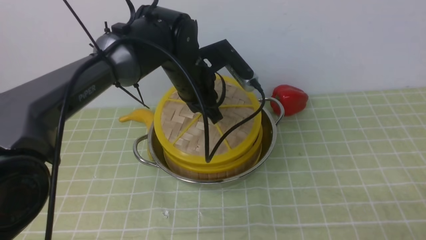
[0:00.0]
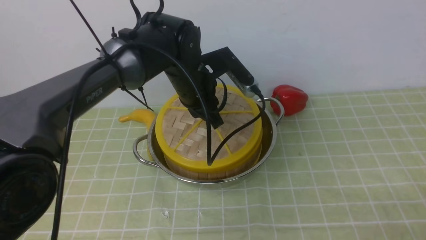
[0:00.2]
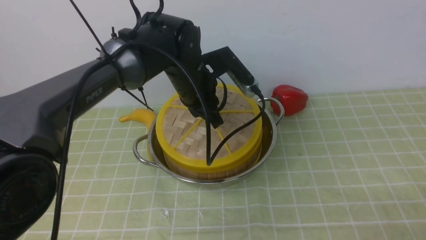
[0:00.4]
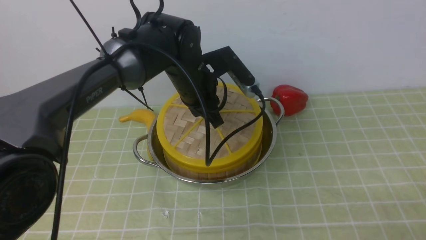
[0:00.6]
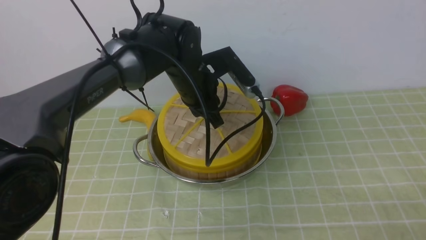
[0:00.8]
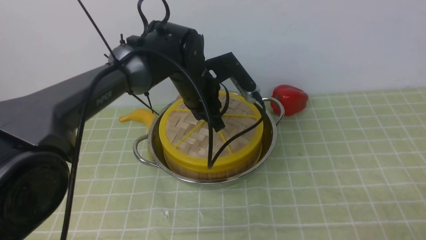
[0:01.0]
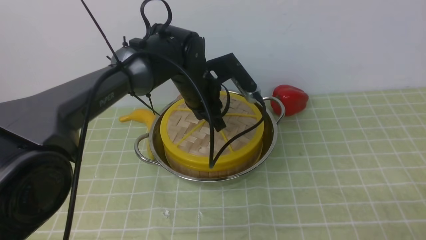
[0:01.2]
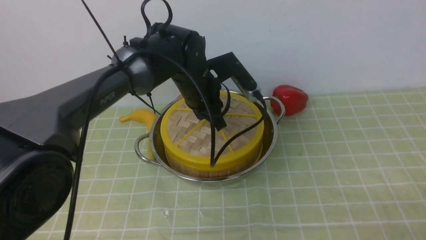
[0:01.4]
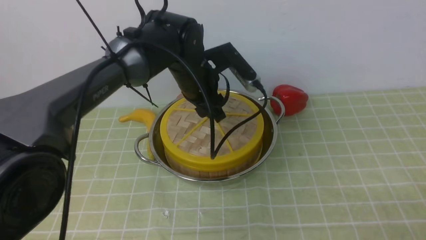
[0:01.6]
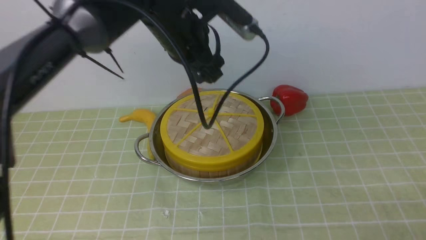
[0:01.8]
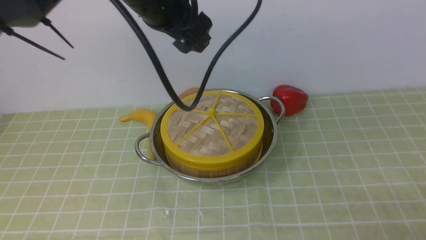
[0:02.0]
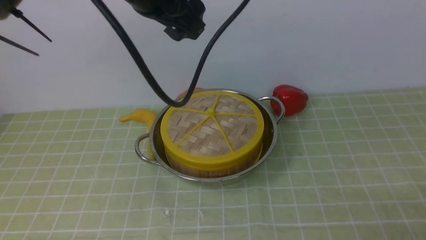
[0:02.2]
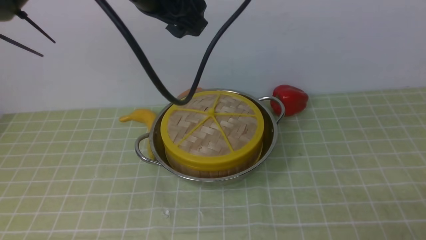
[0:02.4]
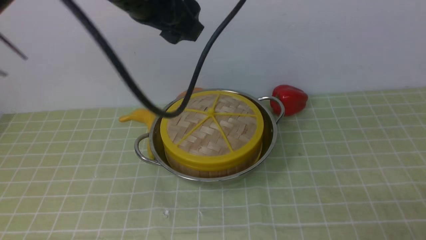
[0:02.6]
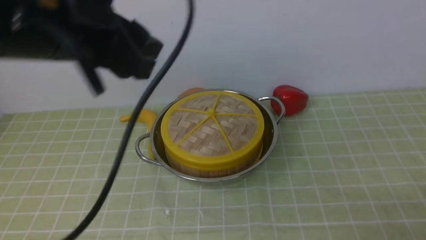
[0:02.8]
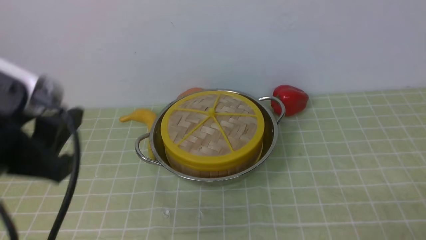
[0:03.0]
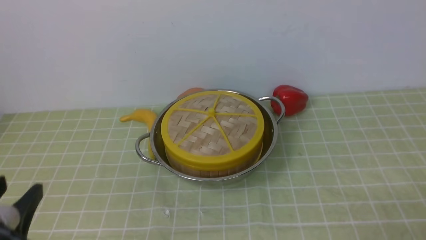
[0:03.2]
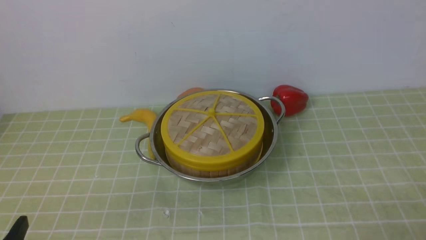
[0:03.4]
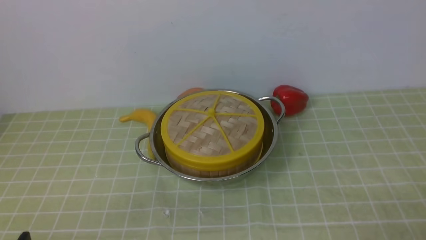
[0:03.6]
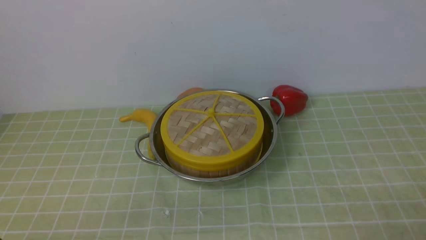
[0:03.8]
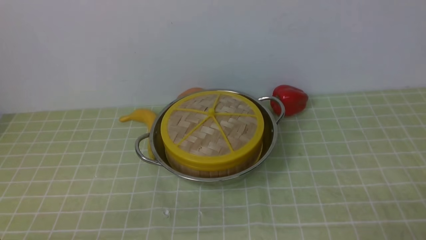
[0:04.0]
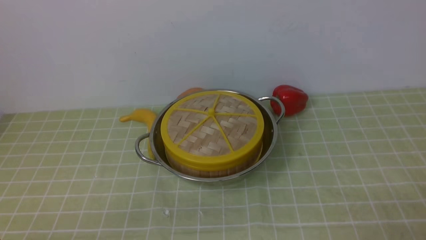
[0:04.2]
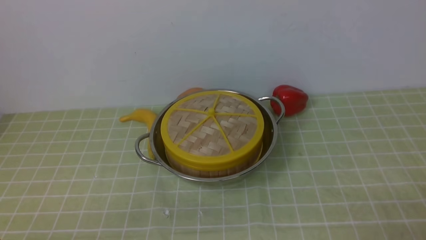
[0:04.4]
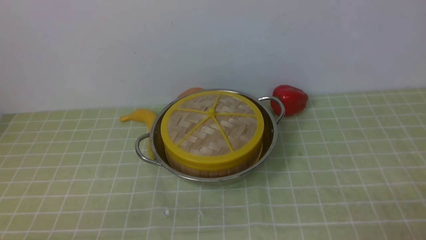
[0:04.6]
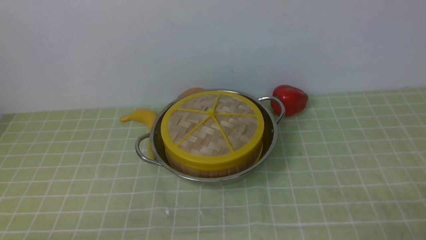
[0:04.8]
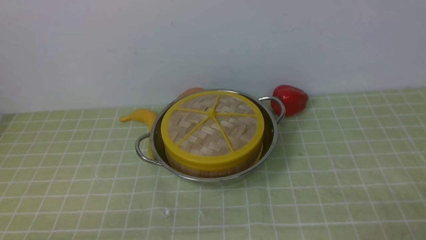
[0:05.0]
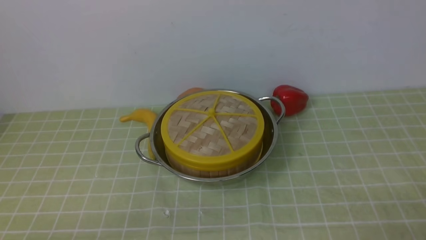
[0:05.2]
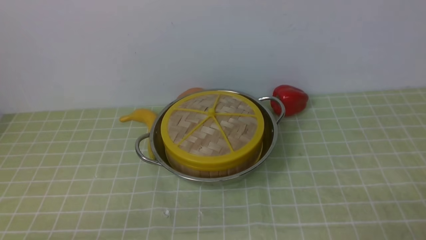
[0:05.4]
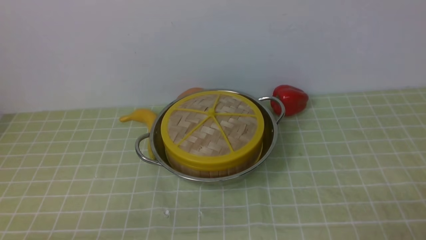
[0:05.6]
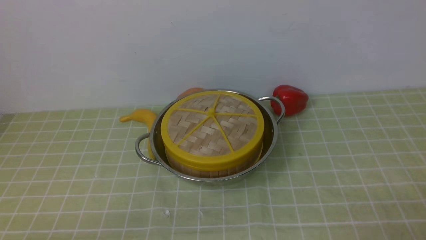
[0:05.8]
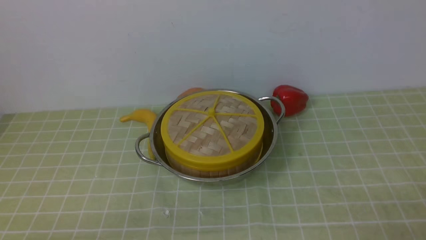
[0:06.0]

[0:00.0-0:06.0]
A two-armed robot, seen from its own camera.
Task of the whole recording: place the steamer in the pot on the green tablecloth, and put the lid on the steamer.
Step, 0:00.0 to 0:02.2: use the left arm to place the steamer lid on the steamer.
0:00.0 to 0:01.6: The left gripper opens its fingers.
0:01.6 to 0:03.0: The left gripper goes roughly 30 cm backward, upward and to the left.
0:03.0 to 0:04.4: The left gripper heads downward and backward, covering some 25 cm.

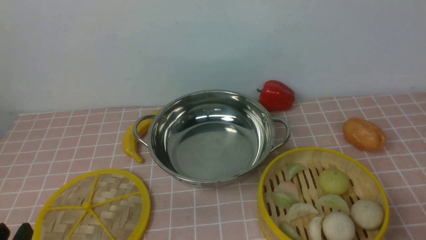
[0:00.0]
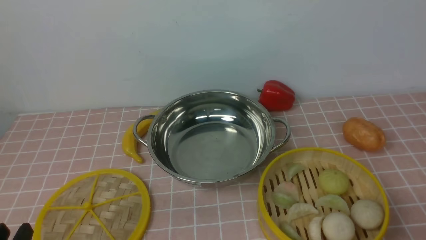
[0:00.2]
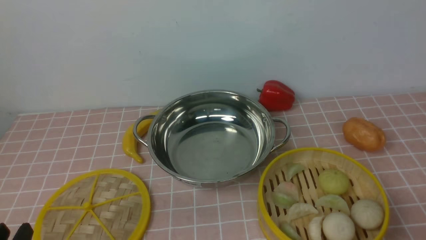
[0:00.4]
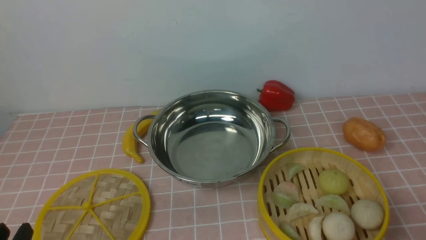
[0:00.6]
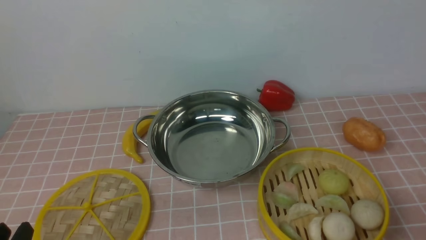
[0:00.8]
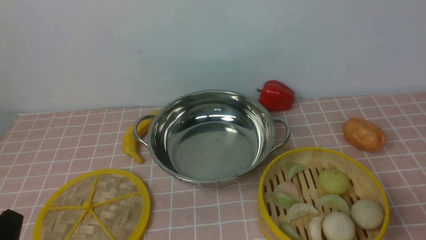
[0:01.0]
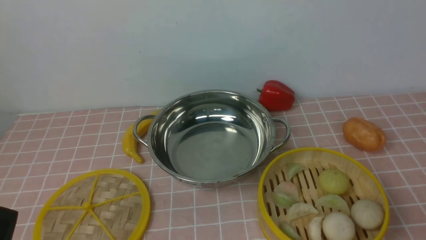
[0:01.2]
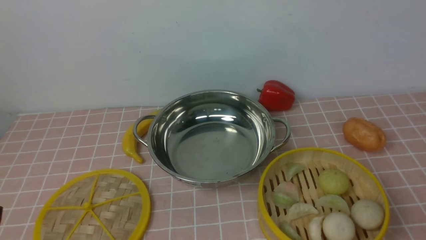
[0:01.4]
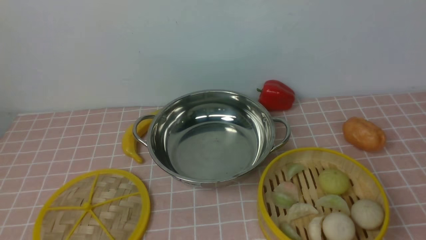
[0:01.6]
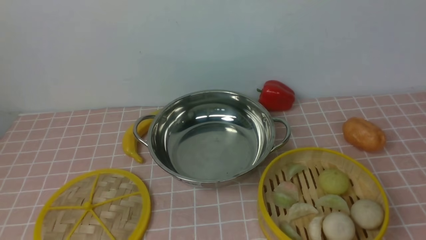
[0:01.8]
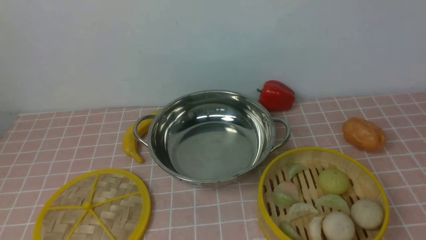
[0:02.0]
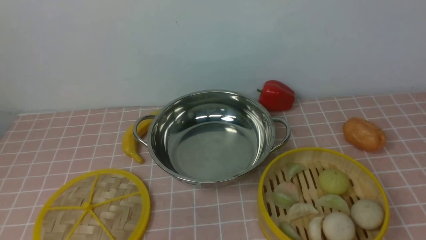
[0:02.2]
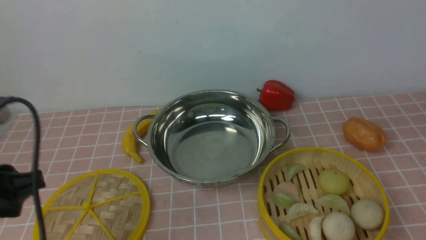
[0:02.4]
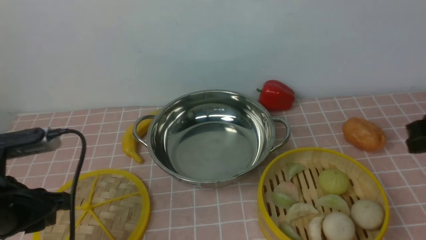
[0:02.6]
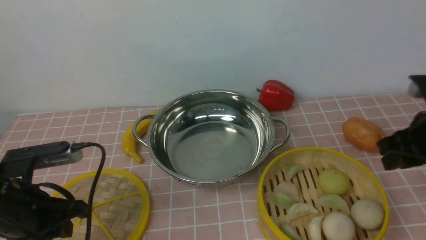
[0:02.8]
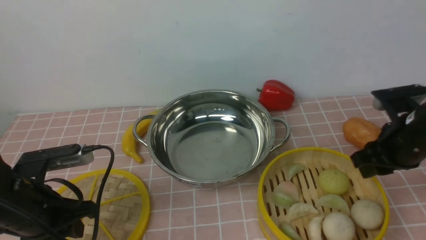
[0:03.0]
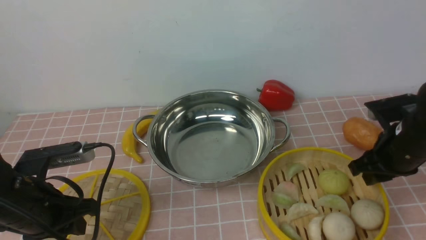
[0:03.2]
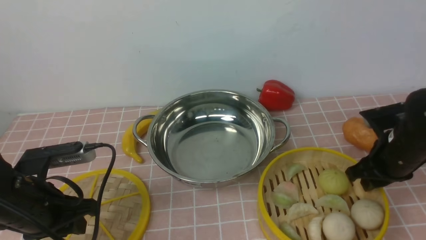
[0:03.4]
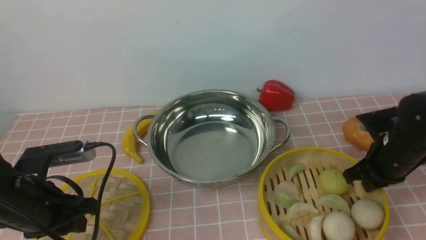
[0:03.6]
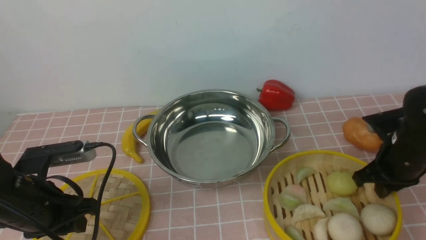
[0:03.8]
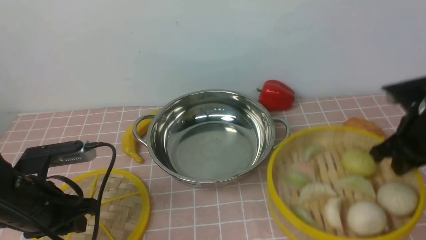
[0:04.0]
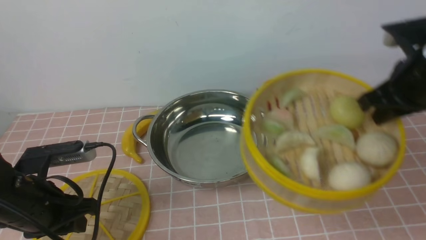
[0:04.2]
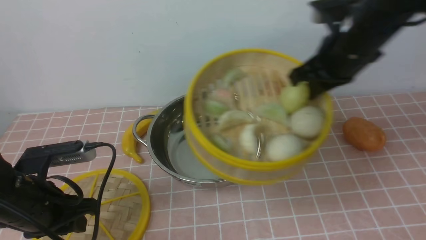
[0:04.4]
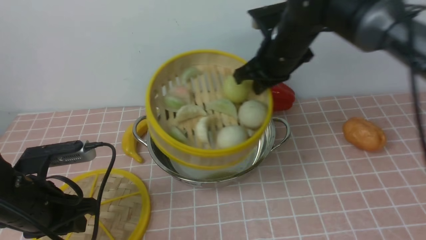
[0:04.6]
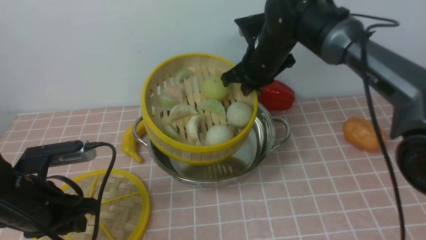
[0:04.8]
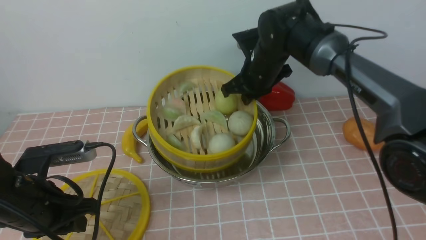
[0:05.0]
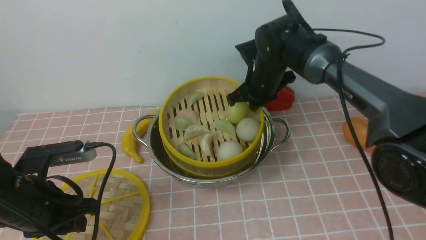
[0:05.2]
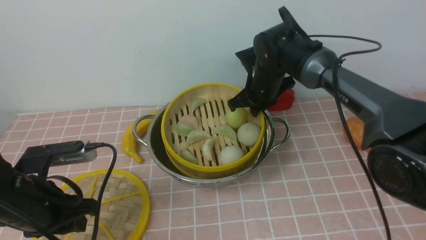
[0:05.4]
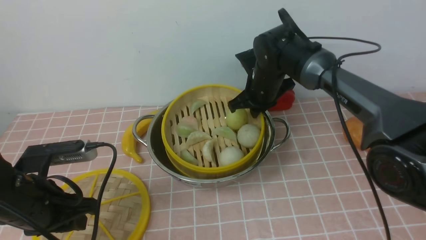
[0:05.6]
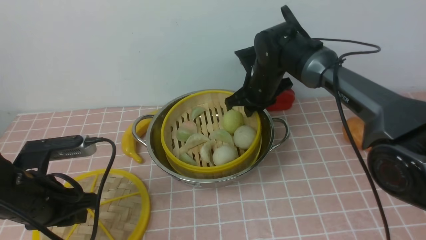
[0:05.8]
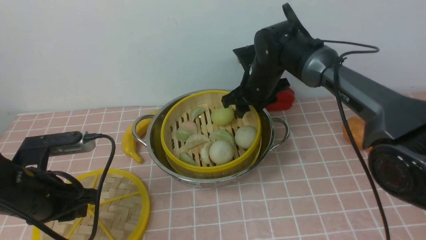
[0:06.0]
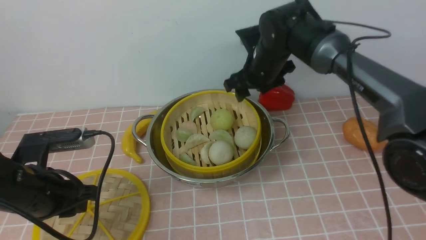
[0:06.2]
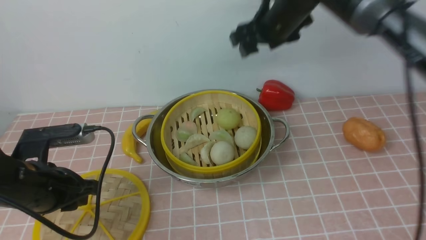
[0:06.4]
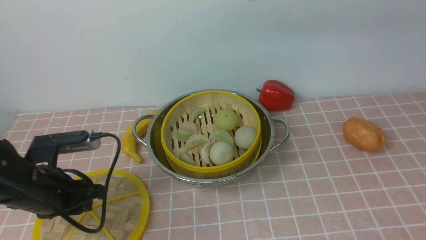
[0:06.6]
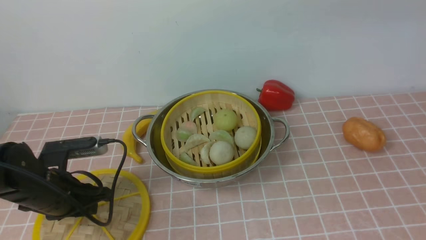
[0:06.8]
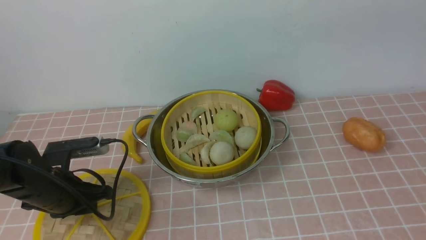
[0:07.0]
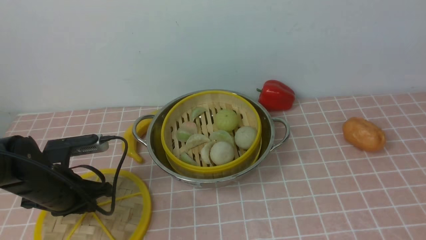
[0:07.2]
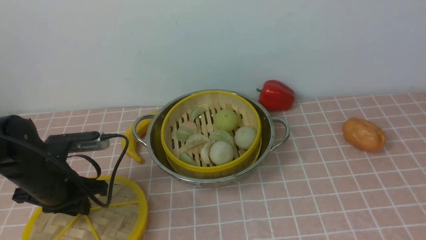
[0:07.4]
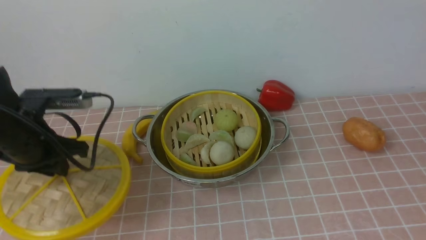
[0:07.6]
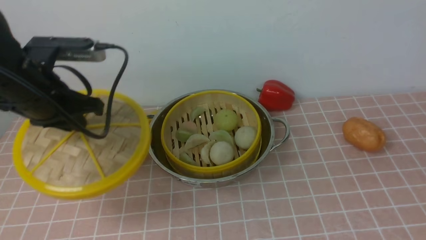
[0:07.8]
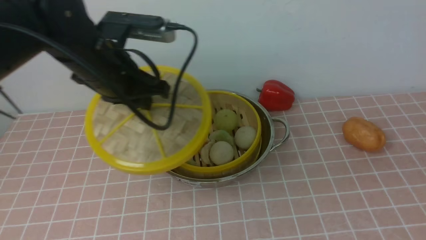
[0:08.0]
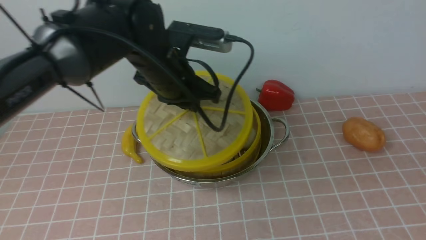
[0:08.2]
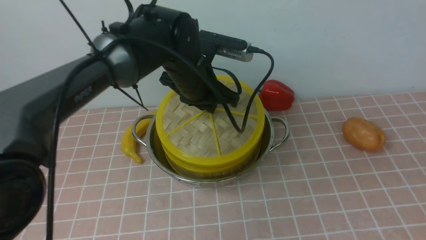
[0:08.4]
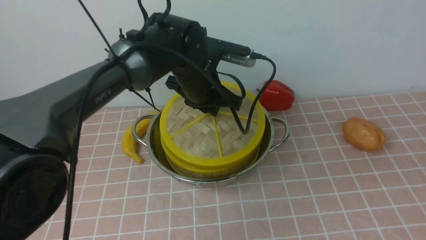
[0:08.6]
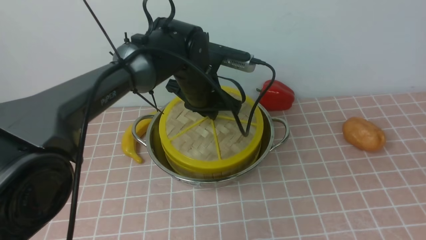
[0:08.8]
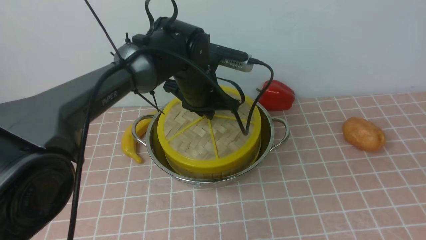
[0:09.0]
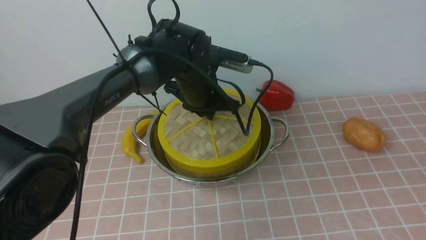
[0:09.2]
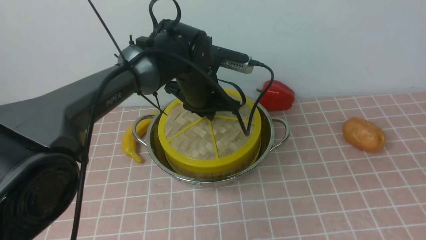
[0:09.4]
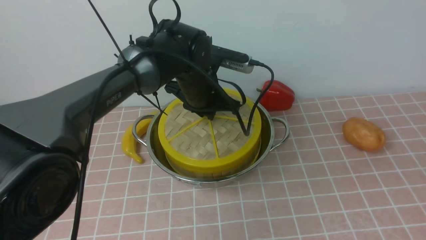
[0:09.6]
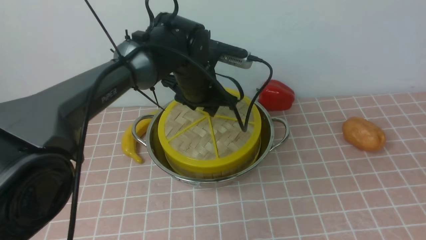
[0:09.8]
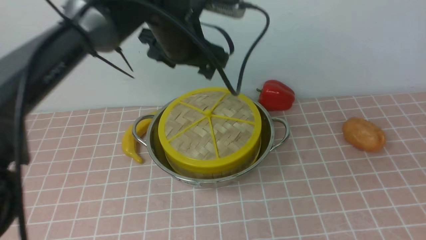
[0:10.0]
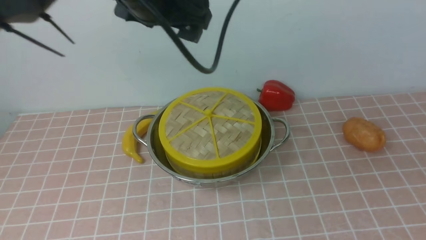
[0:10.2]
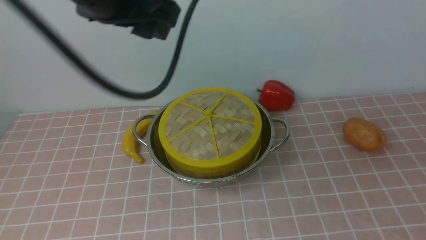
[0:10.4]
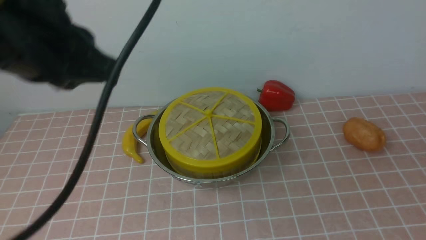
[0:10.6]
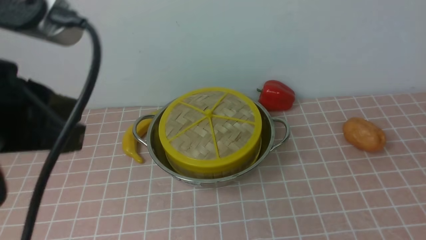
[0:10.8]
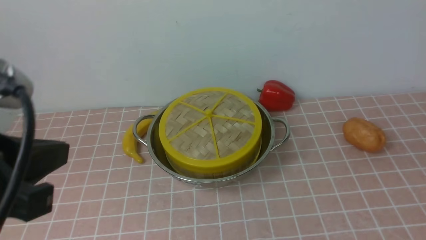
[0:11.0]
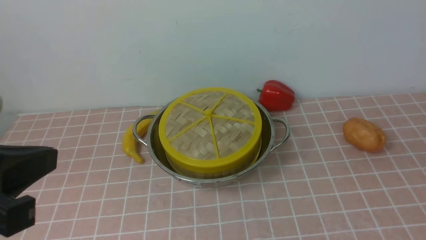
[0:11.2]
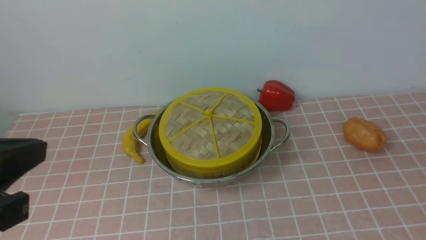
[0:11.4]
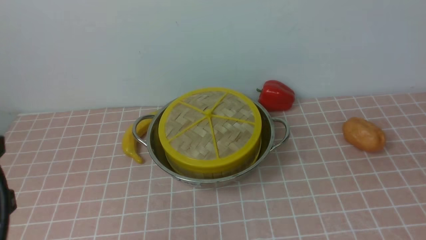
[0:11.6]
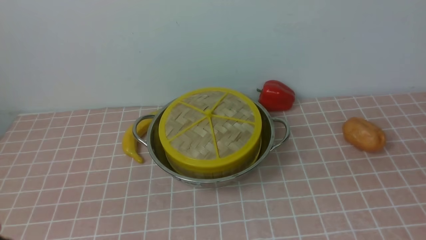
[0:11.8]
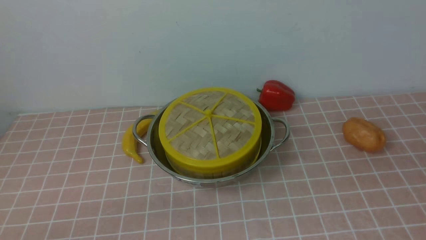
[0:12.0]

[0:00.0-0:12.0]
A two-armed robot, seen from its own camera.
Task of the whole recording: place the steamer in the pot on the pink tablecloth, and put the lid on the steamer.
Step, 0:00.0 to 0:03.8: use the right arm to lift the steamer closest to it.
Step, 0:04.0 to 0:06.0: use the right arm to put the steamer into the iron steamer pot in the middle.
Step, 0:07.6 to 0:09.8: use the left arm to place the steamer lid on the steamer.
0:01.6 to 0:03.0: The left gripper shifts approximately 15 cm forward. Meanwhile the right gripper goes approximately 25 cm forward.
0:03.0 to 0:04.4: The right gripper moves upward, to the left and forward, about 10 cm, and closes its fingers.
0:04.4 to 0:06.0: The right gripper moves to the left, forward and downward, about 20 cm, and opens up.
0:06.0 to 0:07.6: The right gripper moves backward, upward and to the right, roughly 50 cm; the left gripper goes roughly 5 cm forward.
0:07.6 to 0:09.0: The right gripper moves downward, about 10 cm. Meanwhile the left gripper moves to the right and forward, approximately 25 cm.
0:09.0 to 0:10.4: The left gripper heads upward and backward, covering about 25 cm, and opens up.
0:10.4 to 0:12.0: The left gripper goes roughly 35 cm backward, downward and to the left, and closes.
